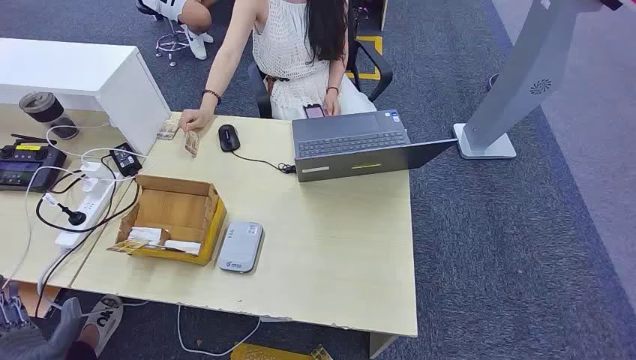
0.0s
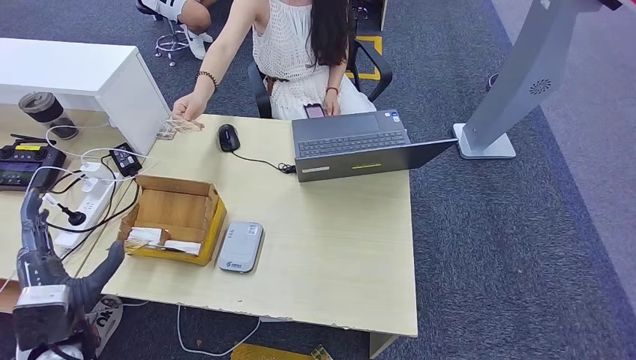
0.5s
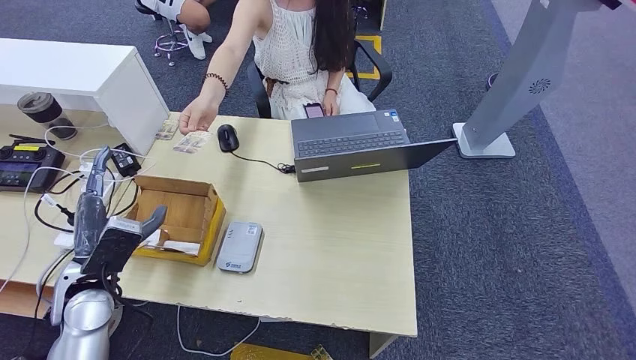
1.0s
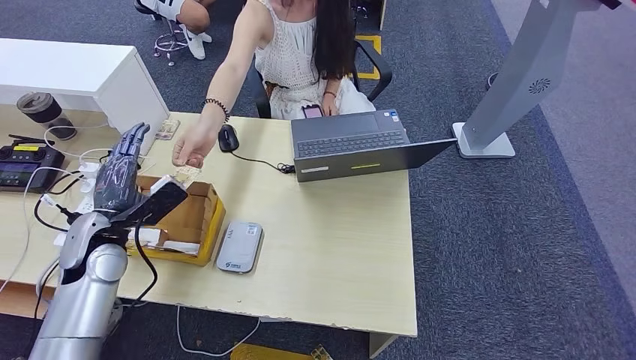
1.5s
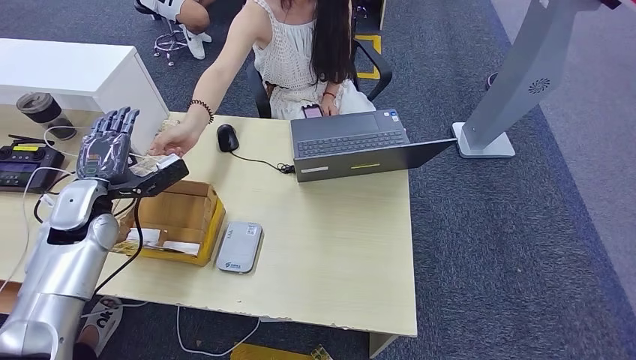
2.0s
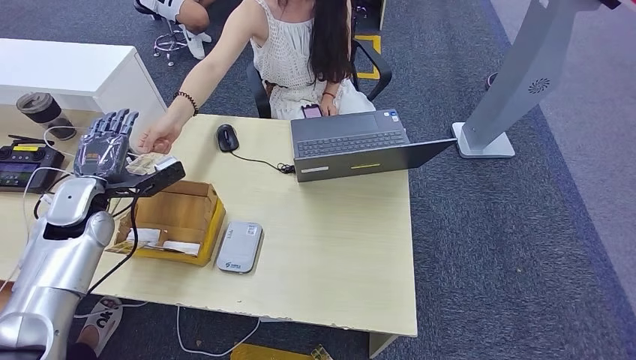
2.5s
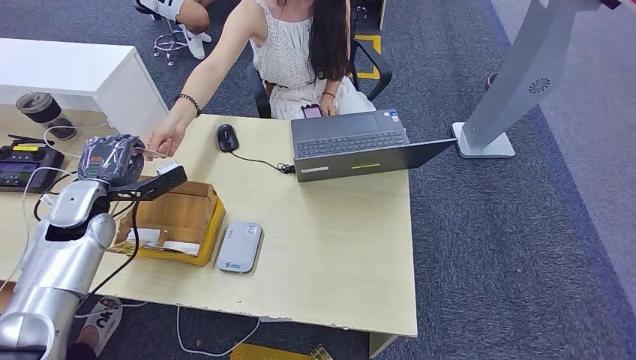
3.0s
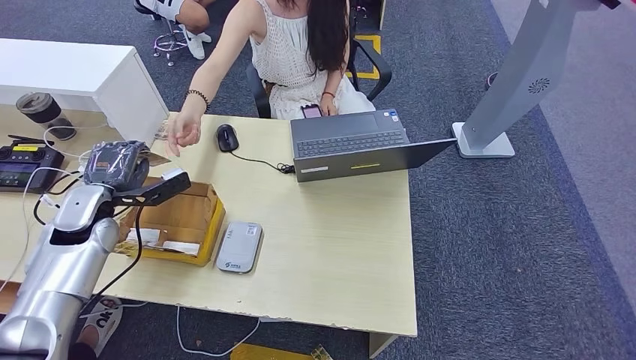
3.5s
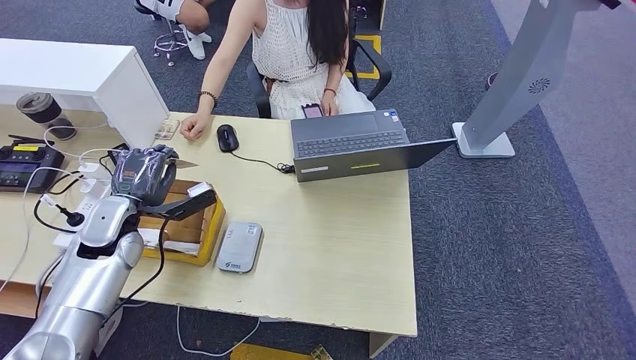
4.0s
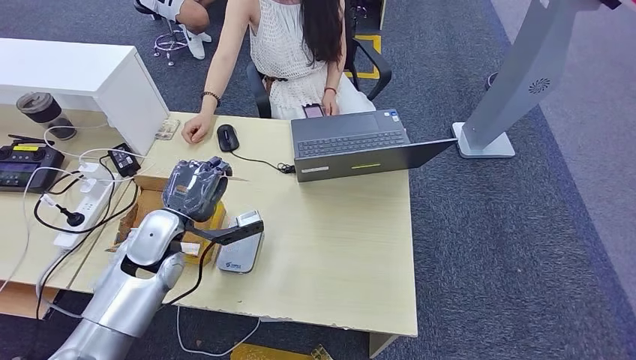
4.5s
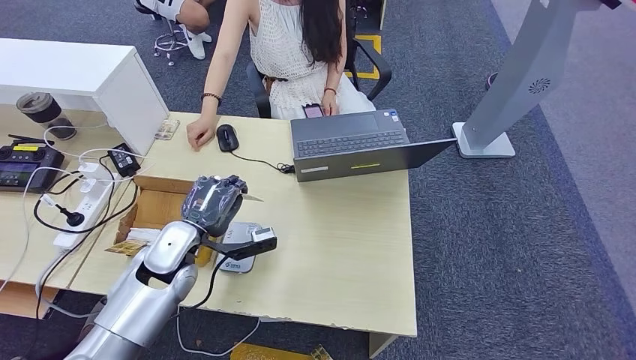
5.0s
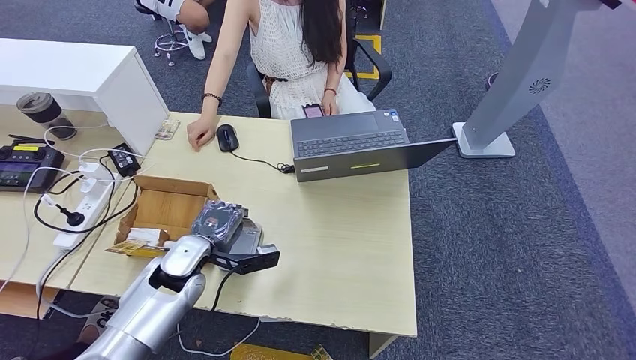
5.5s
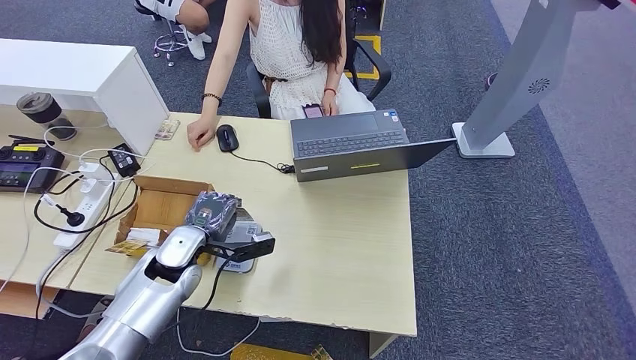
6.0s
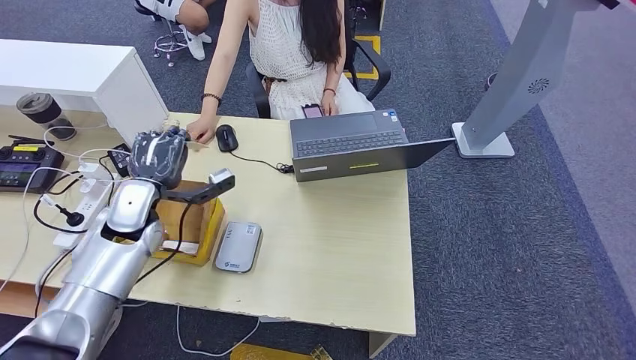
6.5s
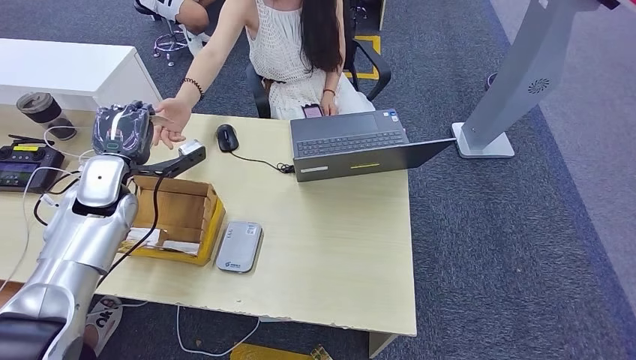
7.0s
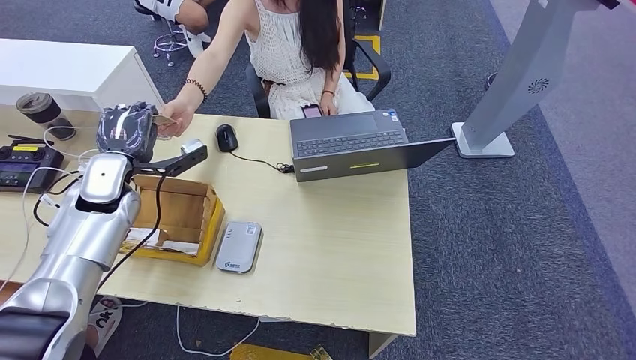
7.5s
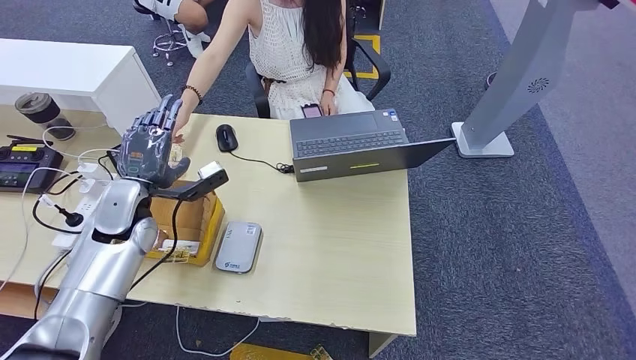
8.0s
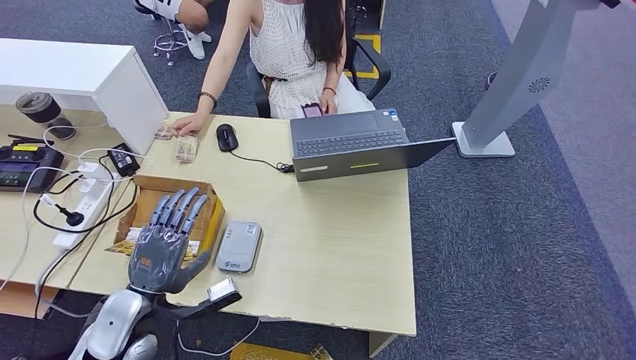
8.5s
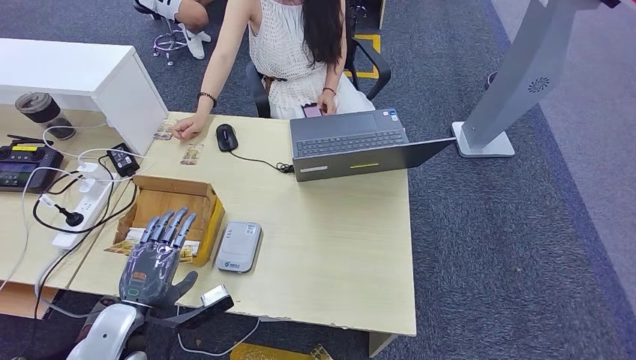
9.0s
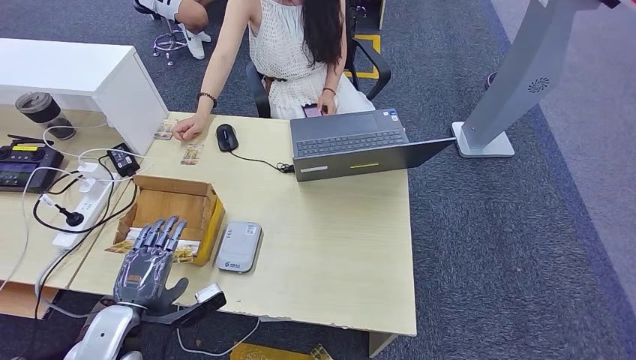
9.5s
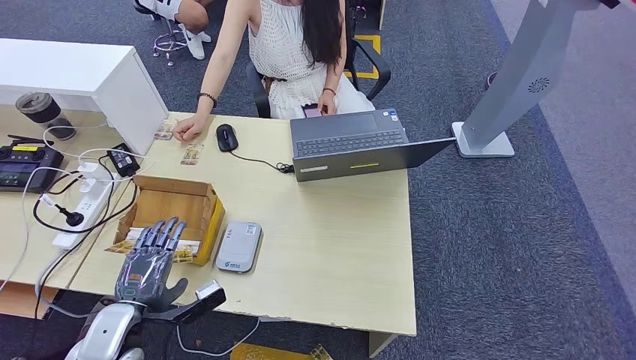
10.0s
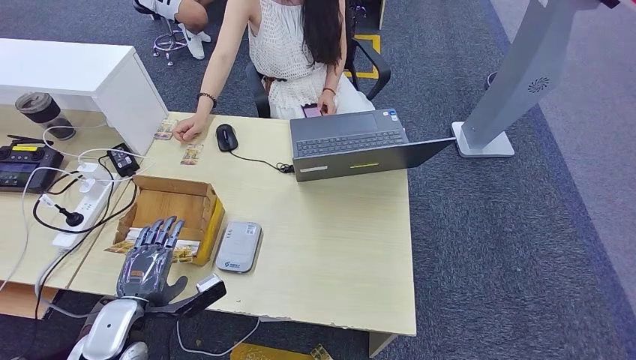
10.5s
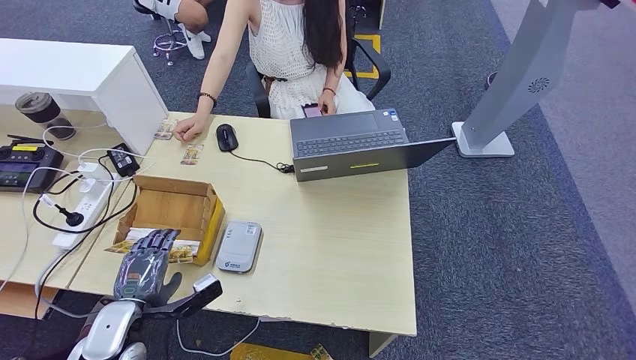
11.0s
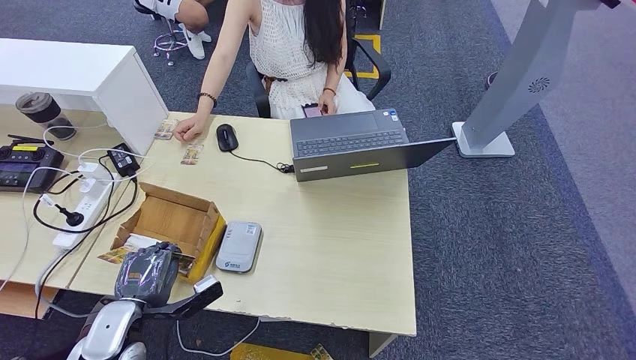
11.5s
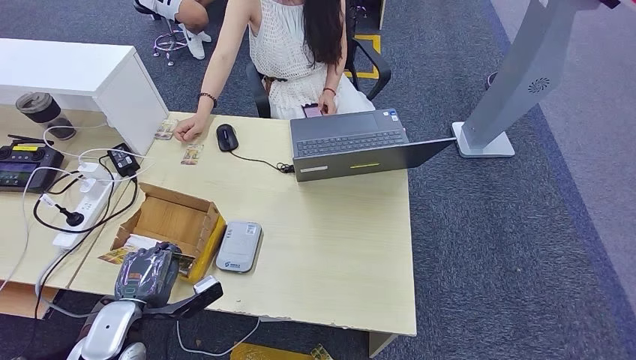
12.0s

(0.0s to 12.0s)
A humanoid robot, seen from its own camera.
Step, 0.0s - 3.5s: Take the ID card from the person's hand.
Step, 4.5s - 6.5s: Place the ID card on the card reader.
Step, 7.0s - 11.0s: Hand the ID card to the person.
2.0s - 4.0s: The left hand goes about 10 cm to the right.
4.0s - 6.0s: The left hand is displaced to the right and downward by about 10 cm.
6.0s - 8.0s: The left hand is displaced upward and to the left by about 10 cm.
8.0s - 10.0s: The left hand is displaced backward and downward by approximately 15 cm.
10.0s - 12.0s: The left hand shifts some 5 cm forward.

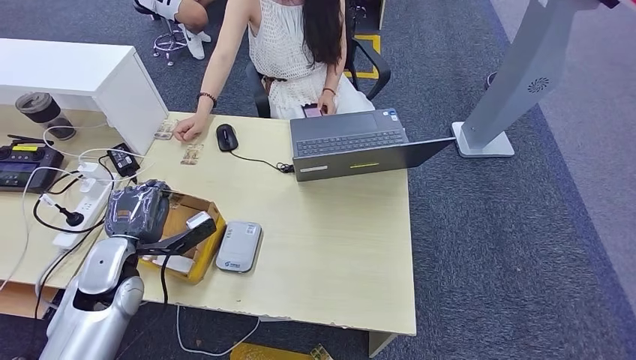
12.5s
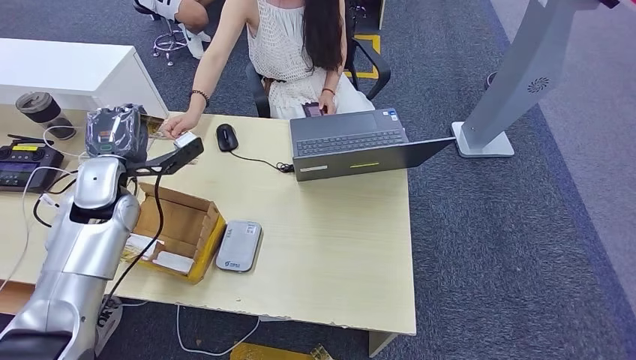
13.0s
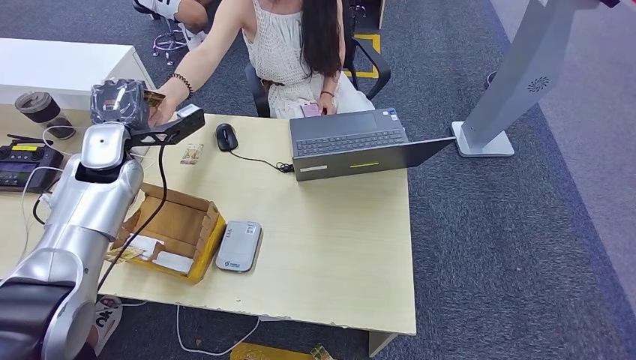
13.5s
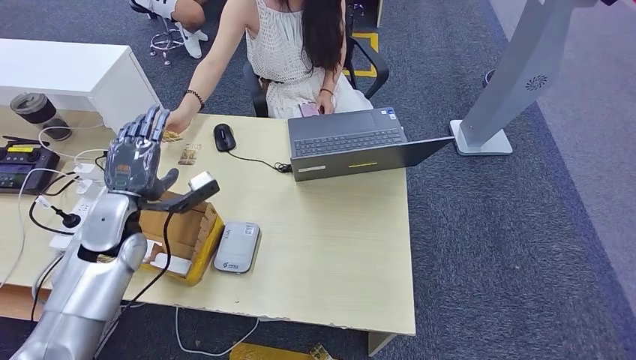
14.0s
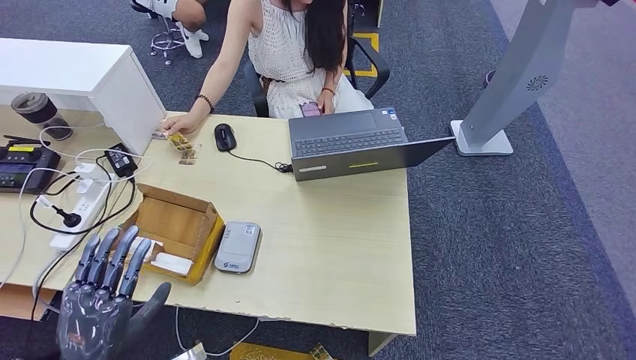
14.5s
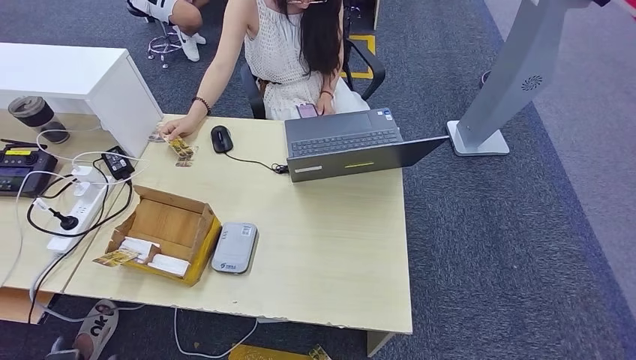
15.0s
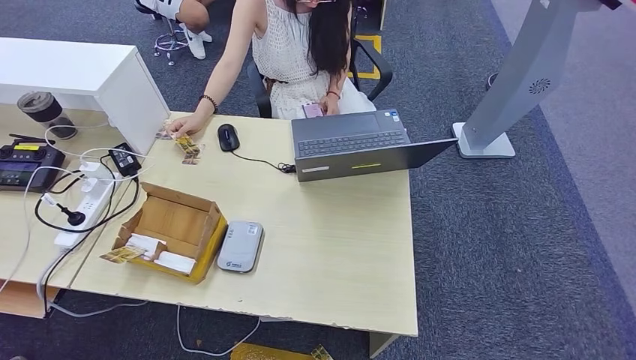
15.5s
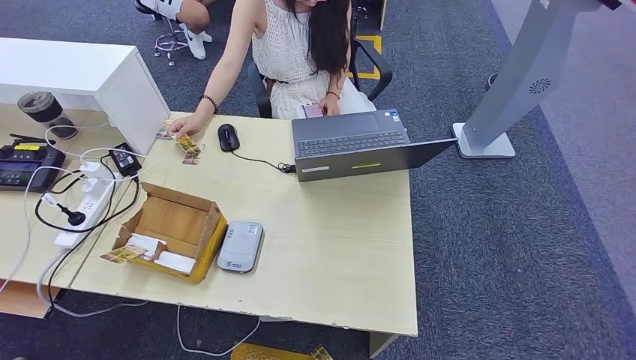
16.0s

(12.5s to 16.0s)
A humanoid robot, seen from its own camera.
Step, 13.5s - 16.0s: Hand the room key to the person.
12.5s - 14.5s: The left hand moves backward, roughly 20 cm.
14.5s - 16.0s: The left hand moves downward, some 30 cm.
